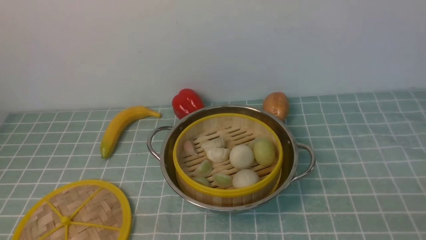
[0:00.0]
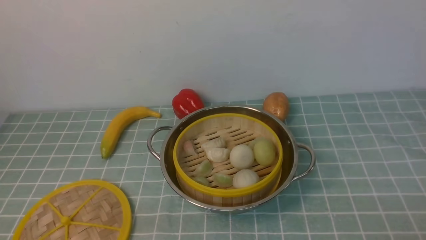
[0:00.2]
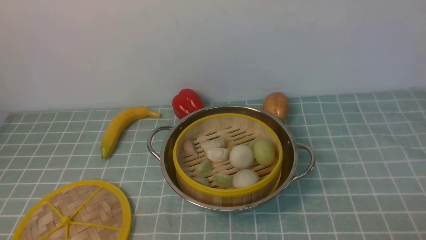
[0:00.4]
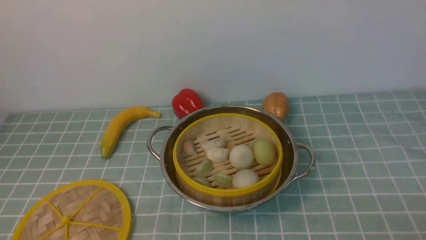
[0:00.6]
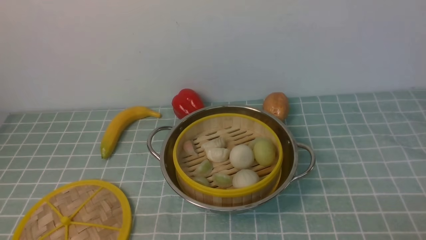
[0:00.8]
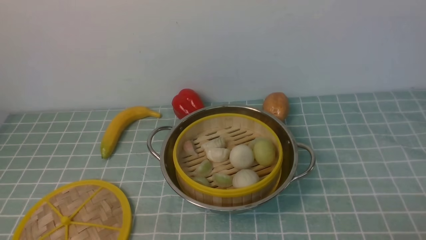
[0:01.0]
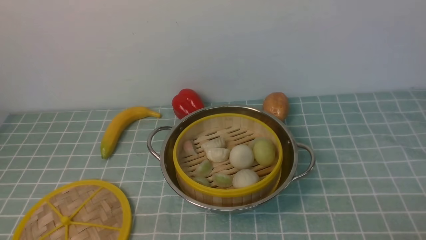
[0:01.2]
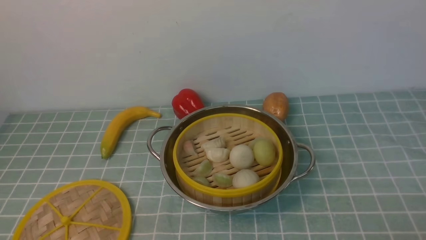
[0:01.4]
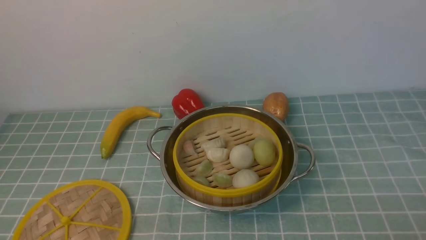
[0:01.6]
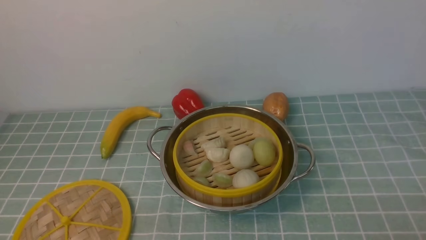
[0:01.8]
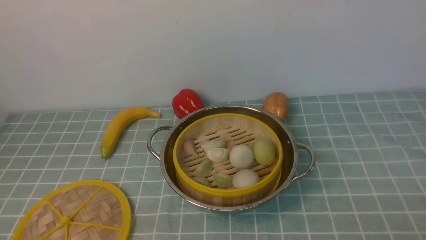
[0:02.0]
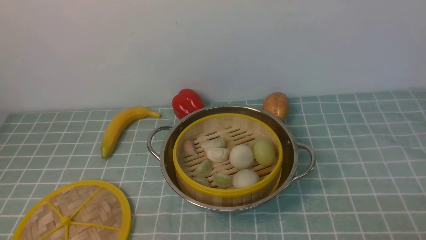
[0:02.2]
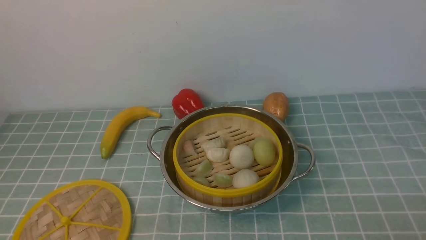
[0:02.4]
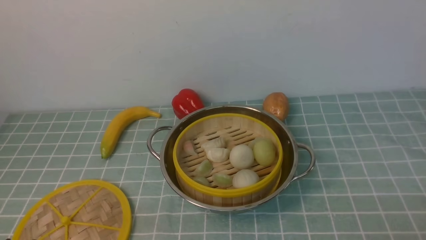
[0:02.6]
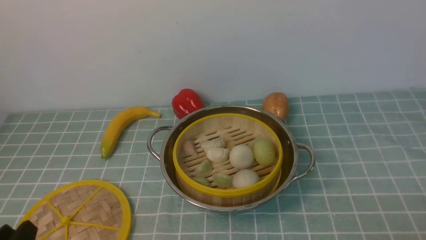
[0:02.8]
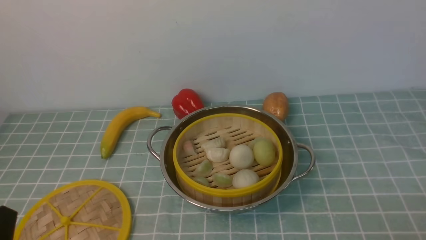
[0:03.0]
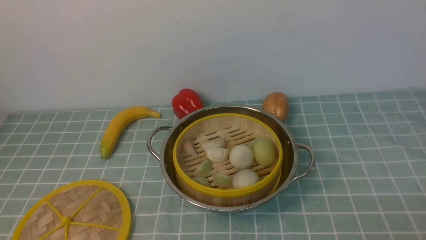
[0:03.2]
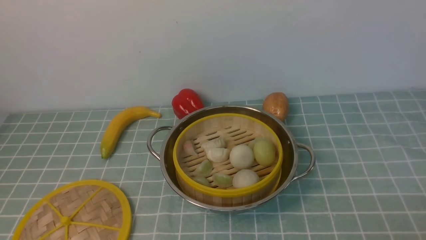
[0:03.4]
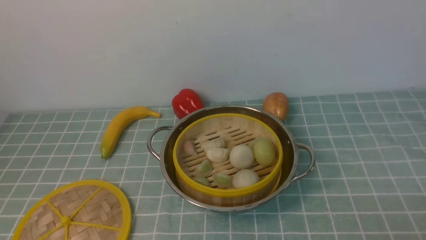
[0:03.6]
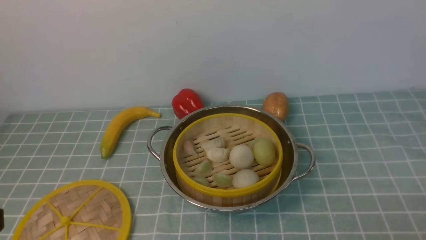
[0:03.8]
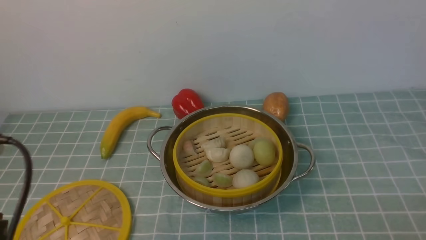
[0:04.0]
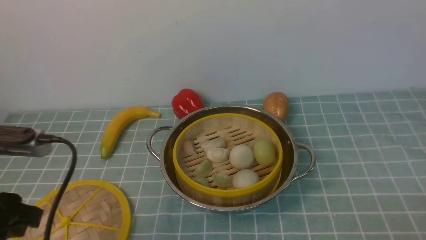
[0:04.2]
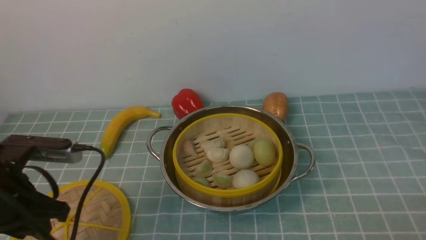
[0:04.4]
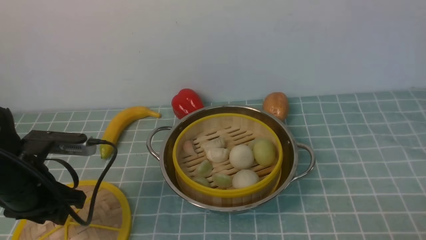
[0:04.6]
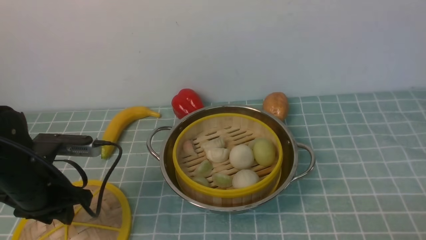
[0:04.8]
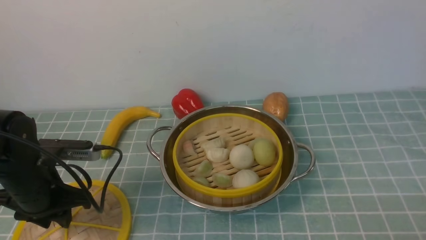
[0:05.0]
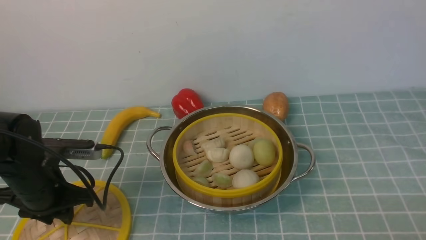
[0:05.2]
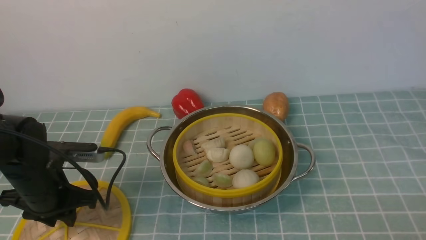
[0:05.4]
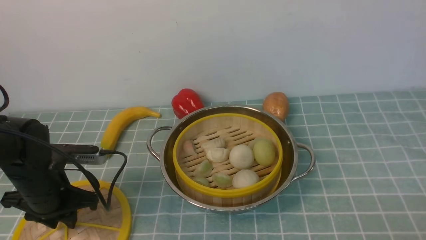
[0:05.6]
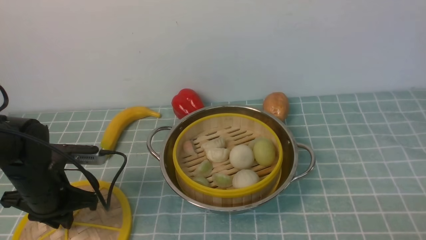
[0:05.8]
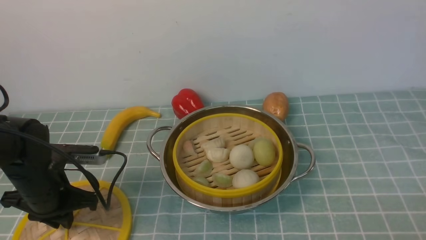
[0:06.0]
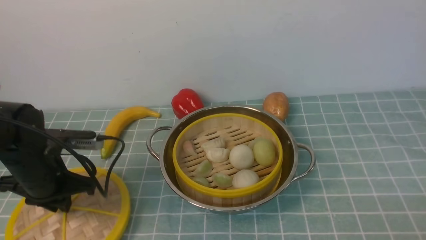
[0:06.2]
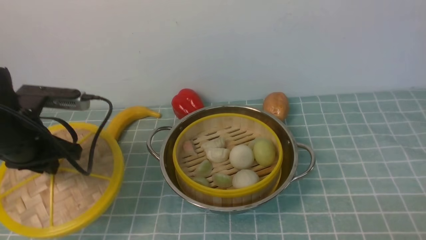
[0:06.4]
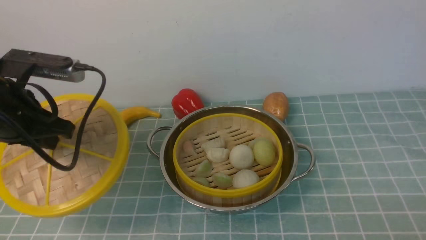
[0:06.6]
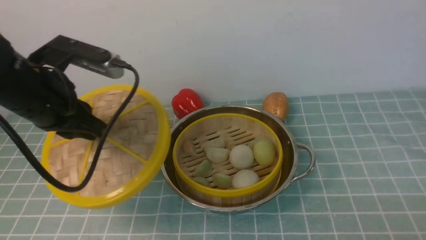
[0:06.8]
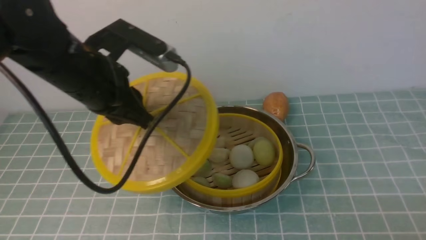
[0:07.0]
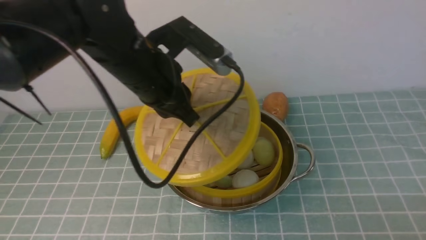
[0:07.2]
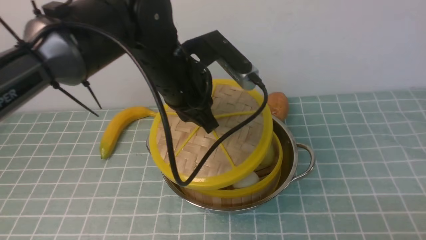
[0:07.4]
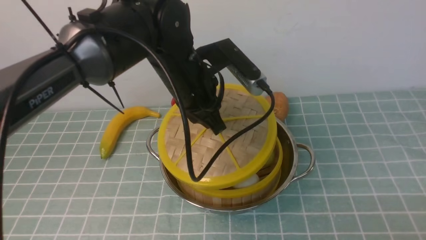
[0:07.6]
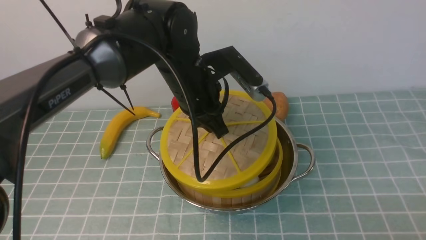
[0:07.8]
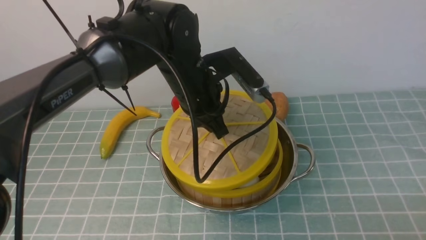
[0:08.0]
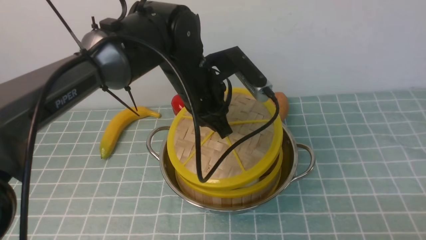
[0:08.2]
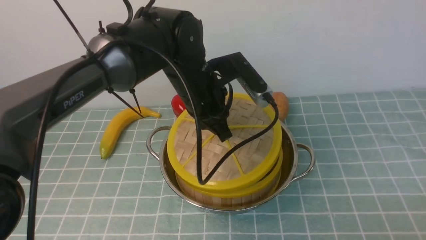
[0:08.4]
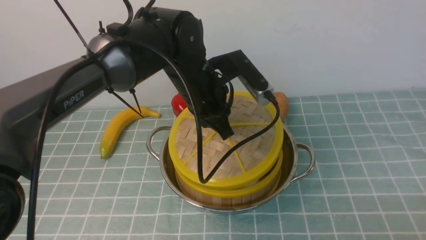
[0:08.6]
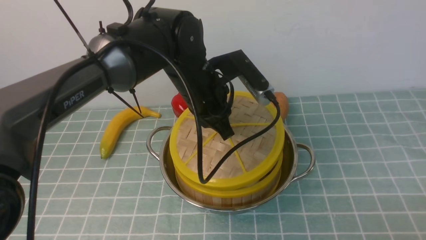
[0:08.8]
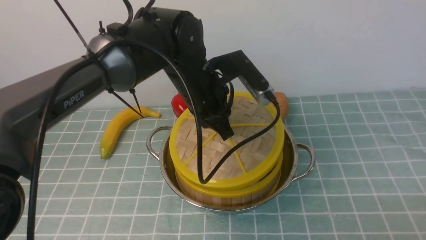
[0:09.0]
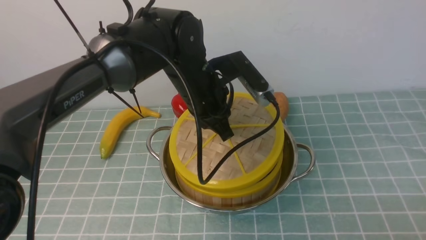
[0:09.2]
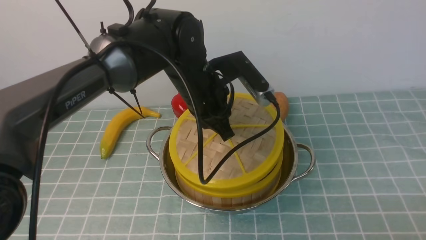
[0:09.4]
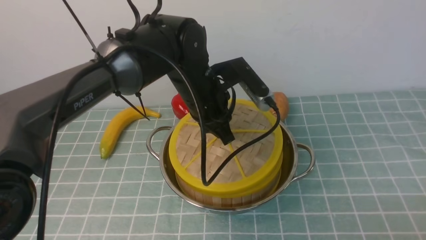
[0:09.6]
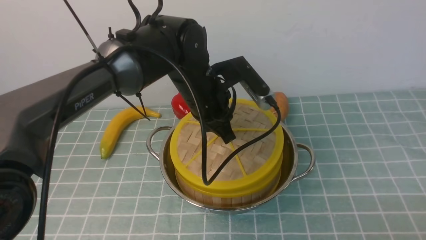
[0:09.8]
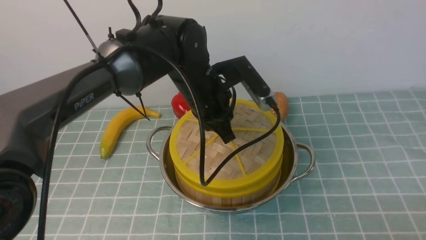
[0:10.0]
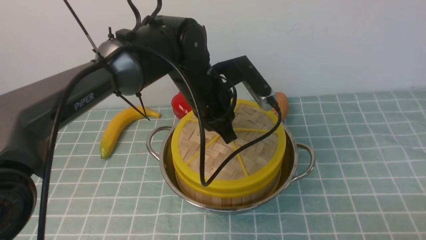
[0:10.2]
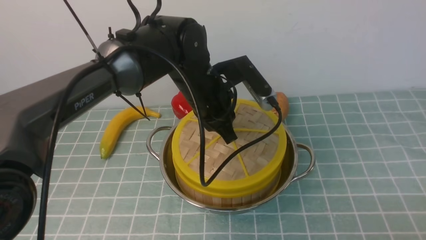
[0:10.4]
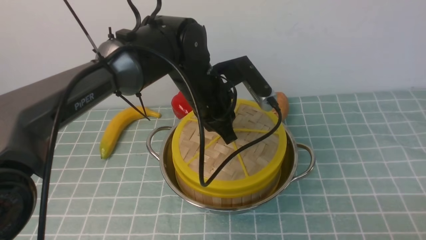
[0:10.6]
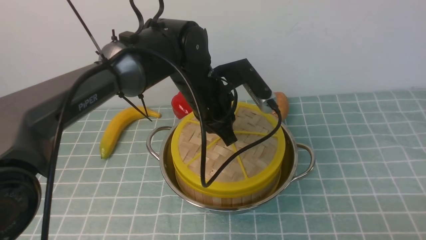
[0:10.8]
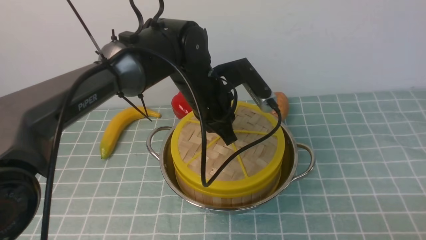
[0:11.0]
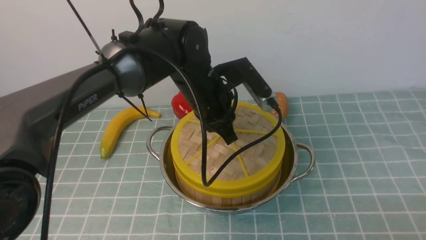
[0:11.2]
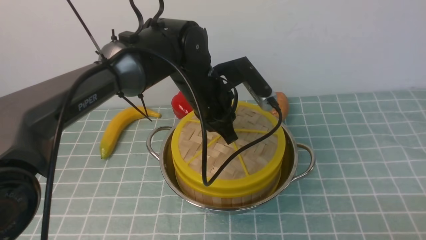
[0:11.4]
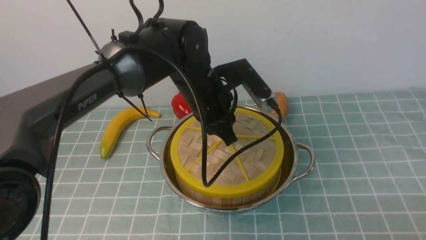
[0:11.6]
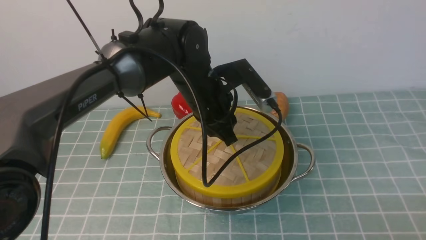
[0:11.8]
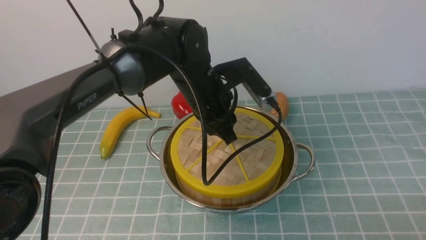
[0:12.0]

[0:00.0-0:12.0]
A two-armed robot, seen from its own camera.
Task of the whole recording: place the steamer in the pot on the blue tablecloth, and put the lid on the steamer.
Step, 0:00.0 to 0:06.4: use the left arm to lift the lid of the steamer.
0:03.0 to 0:04.4: The left gripper is displaced forward and upward by about 15 cm.
0:04.4 to 0:06.0: The left gripper goes roughly 15 cm downward and forward, and closes its fingers.
0:06.0 to 0:07.6: The left gripper moves to the right and upward, roughly 25 cm.
0:09.0 to 0:10.4: Both grippers stay put.
0:10.4 to 0:12.0: The left gripper opens its fingers.

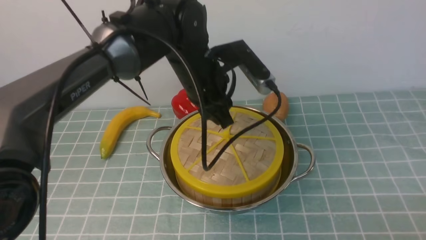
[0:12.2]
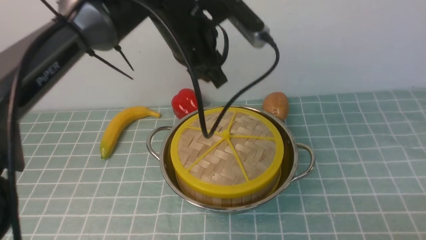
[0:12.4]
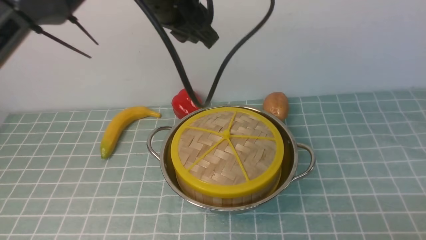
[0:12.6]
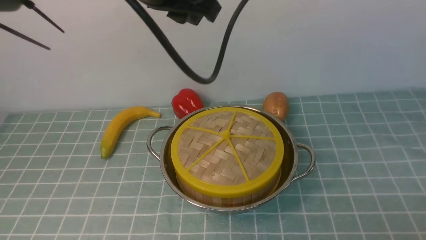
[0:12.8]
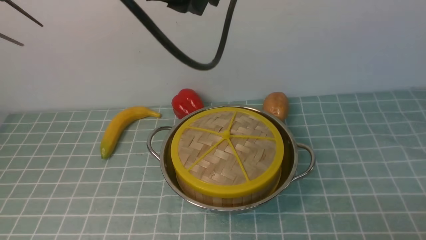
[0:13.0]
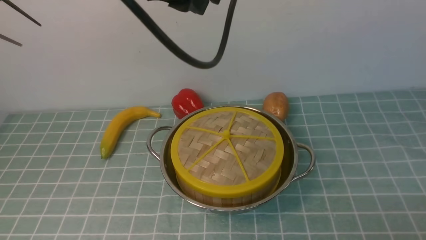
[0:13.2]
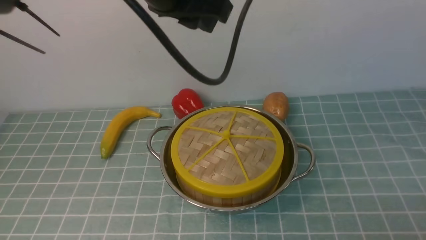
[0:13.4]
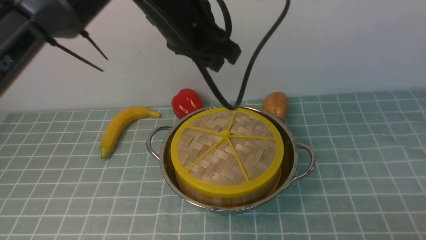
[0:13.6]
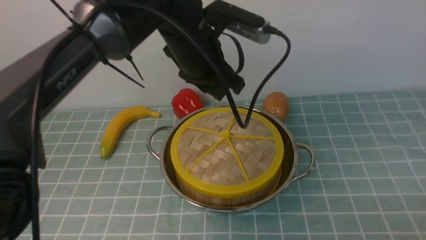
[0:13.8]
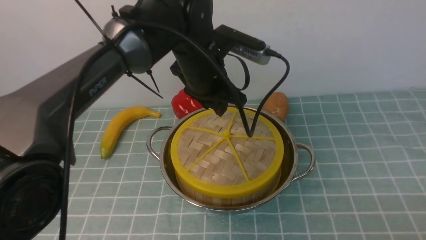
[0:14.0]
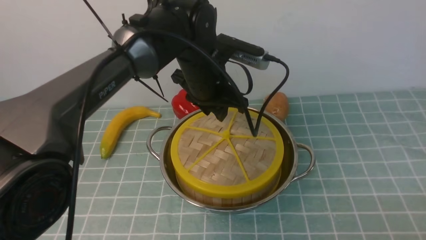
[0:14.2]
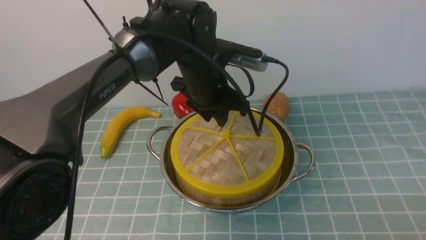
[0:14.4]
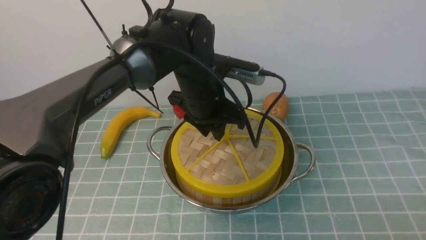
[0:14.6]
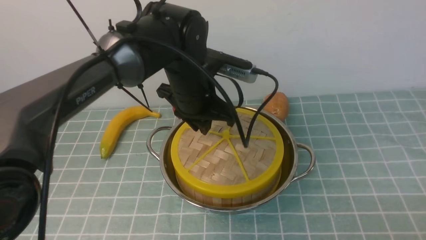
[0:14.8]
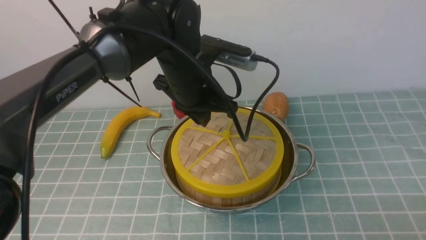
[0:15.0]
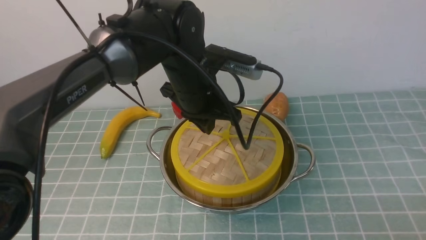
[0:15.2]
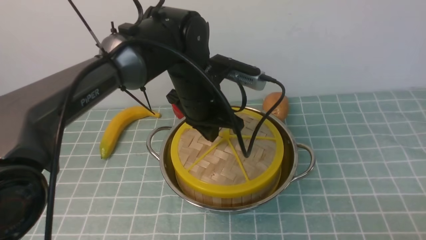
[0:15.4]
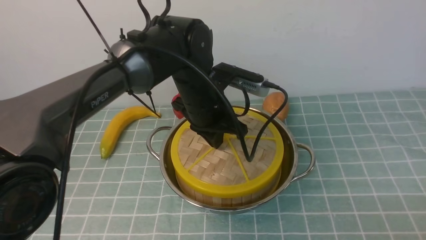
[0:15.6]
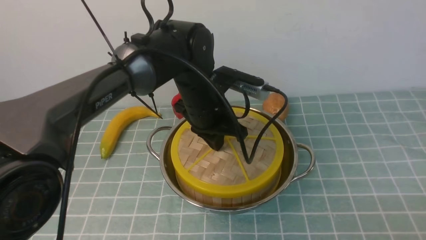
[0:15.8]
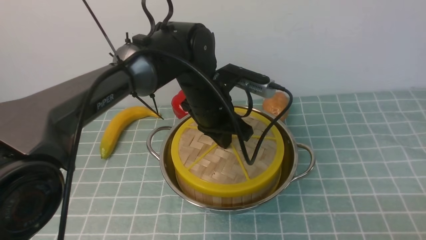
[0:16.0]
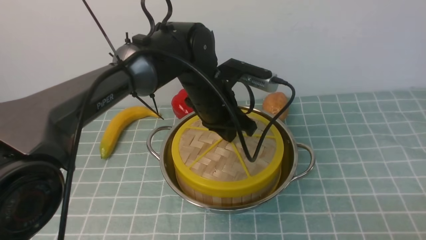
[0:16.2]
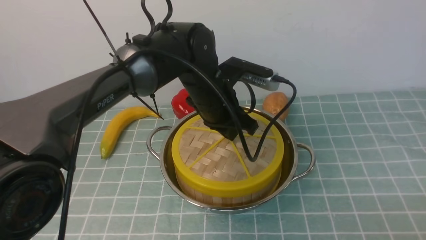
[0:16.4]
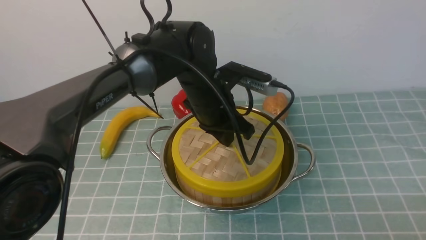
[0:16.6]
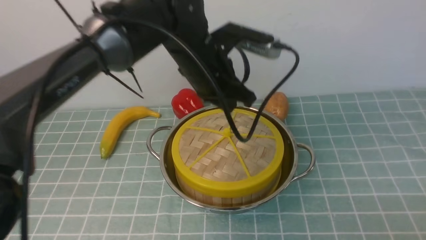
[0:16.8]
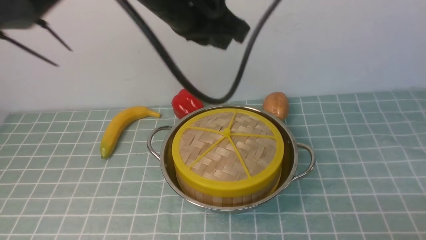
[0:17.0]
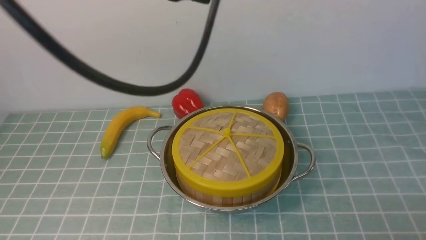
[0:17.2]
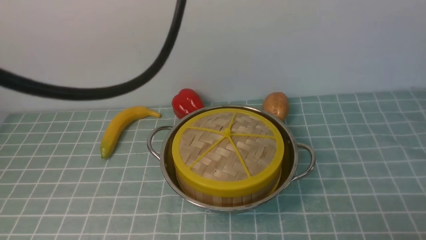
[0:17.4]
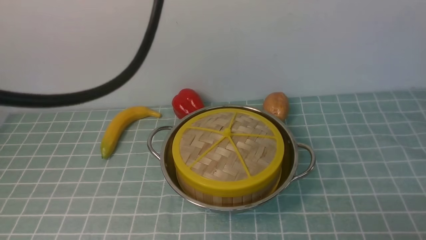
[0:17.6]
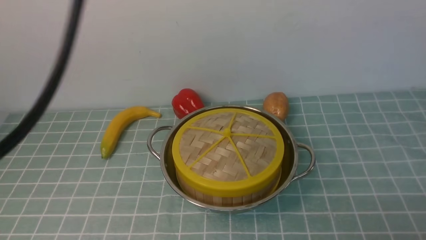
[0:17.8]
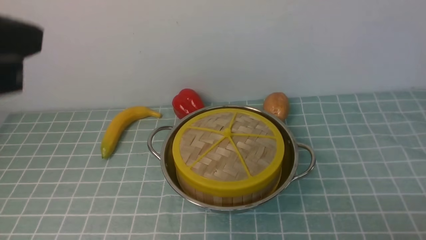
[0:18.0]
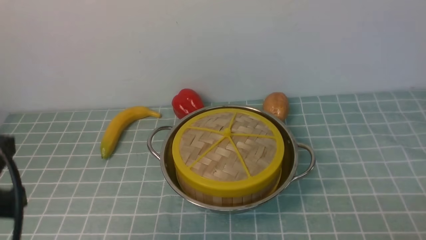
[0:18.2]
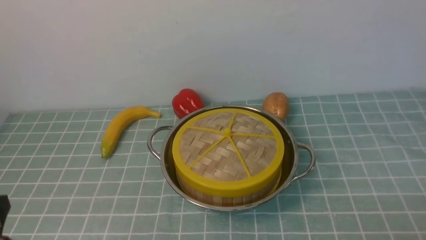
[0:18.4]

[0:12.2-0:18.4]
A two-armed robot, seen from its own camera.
Task of the whole recording: place the steamer in the pot on the blue tablecloth, and put the lid on the steamer.
0:12.2 to 0:13.8: The left gripper travels upward by roughly 5 cm.
0:13.8 to 0:15.4: The left gripper goes approximately 10 cm downward, and closes.
0:16.8 to 0:18.4: The left gripper heads backward and to the left, covering some 35 cm.
